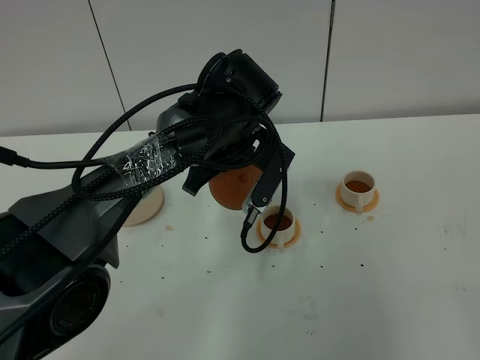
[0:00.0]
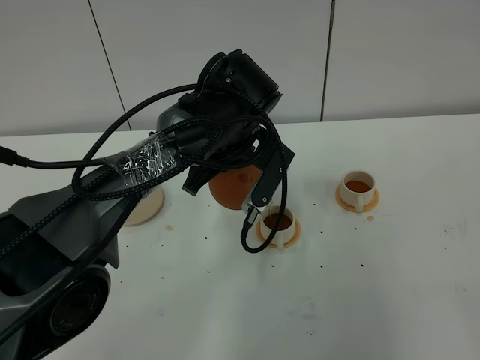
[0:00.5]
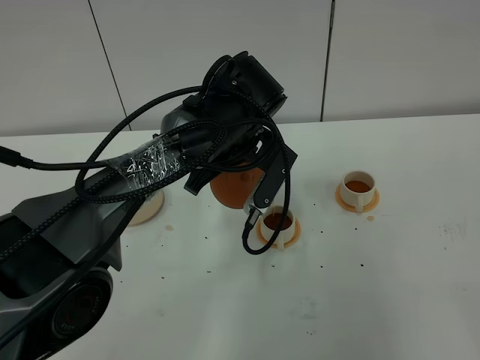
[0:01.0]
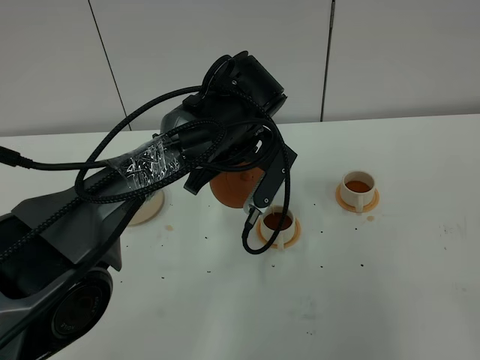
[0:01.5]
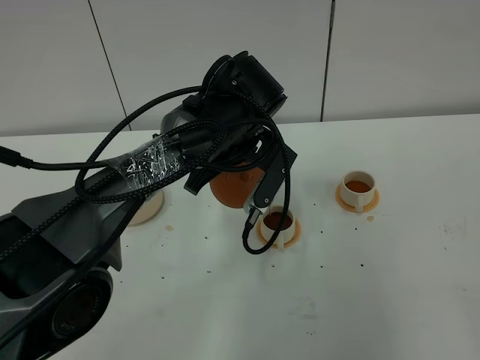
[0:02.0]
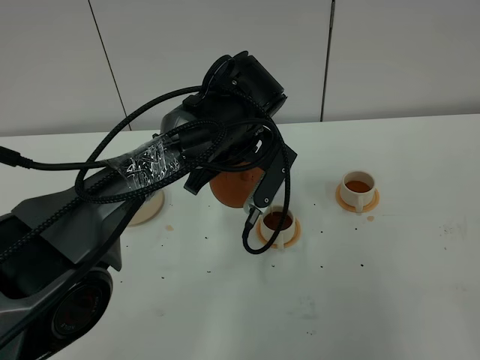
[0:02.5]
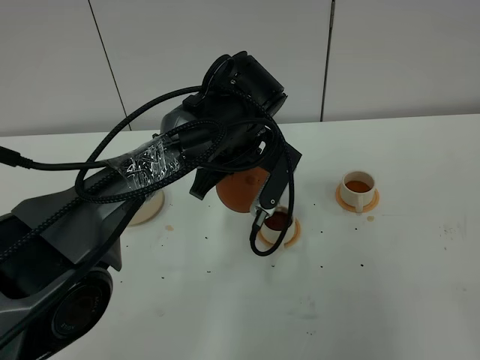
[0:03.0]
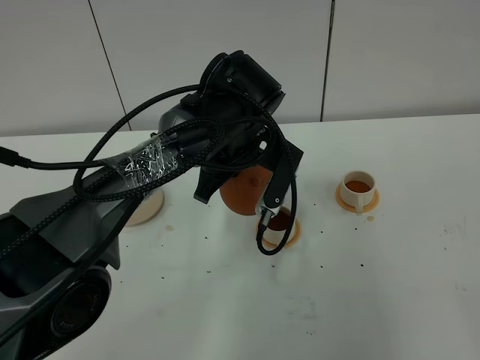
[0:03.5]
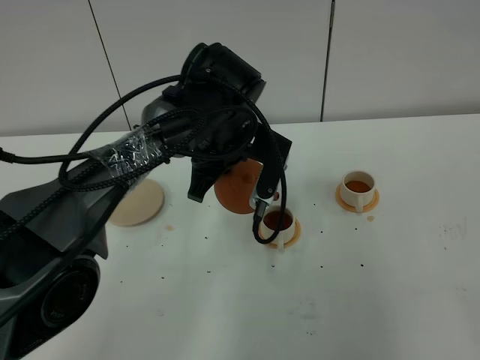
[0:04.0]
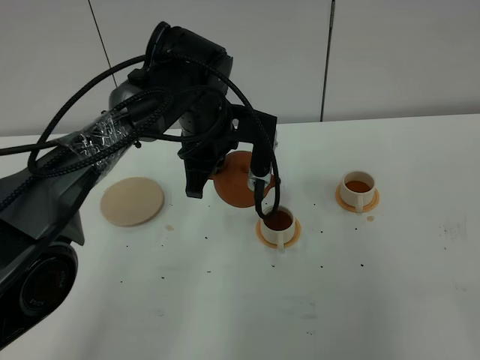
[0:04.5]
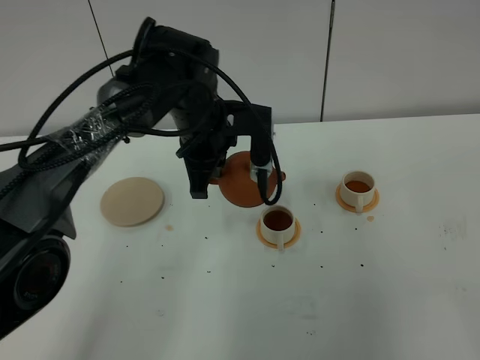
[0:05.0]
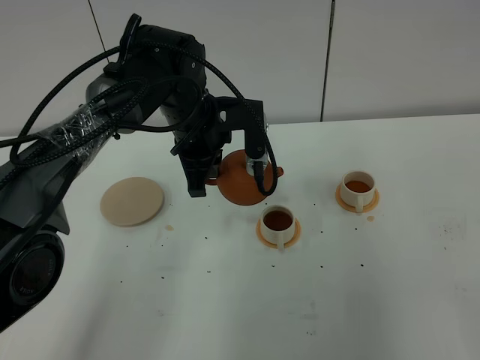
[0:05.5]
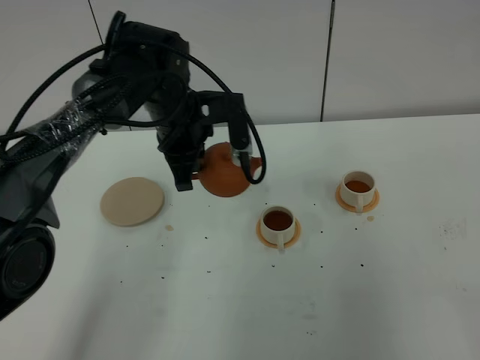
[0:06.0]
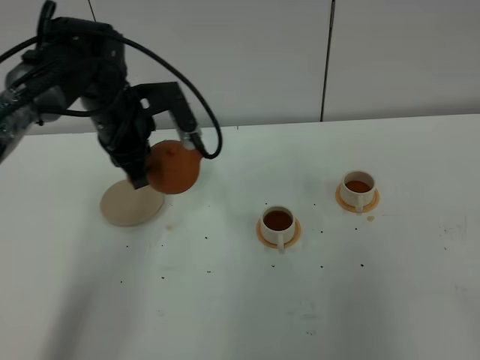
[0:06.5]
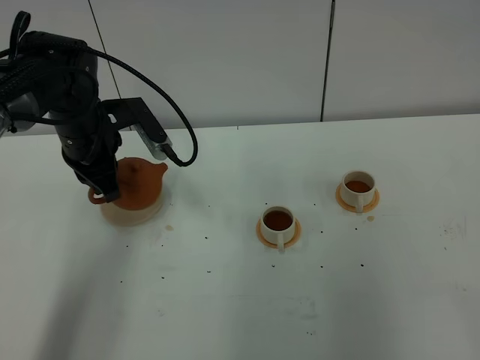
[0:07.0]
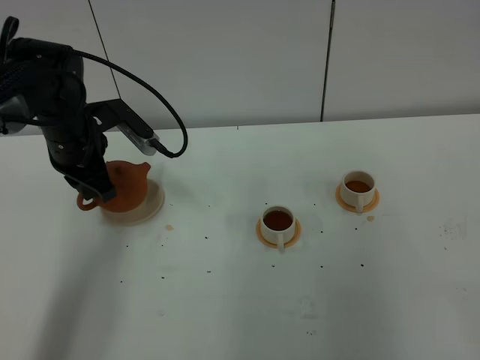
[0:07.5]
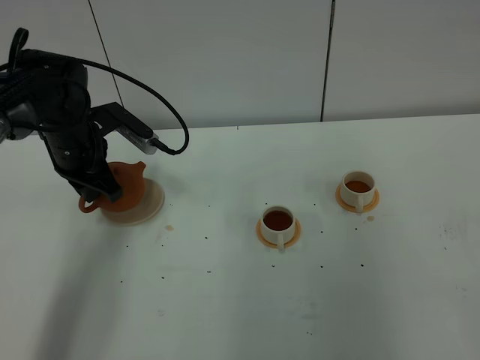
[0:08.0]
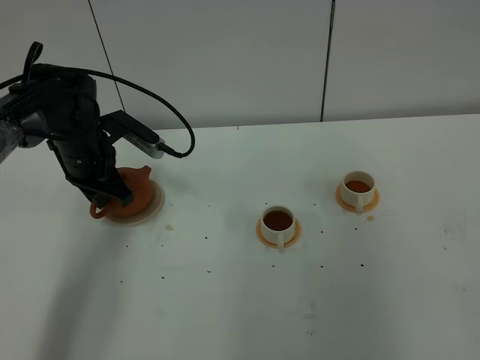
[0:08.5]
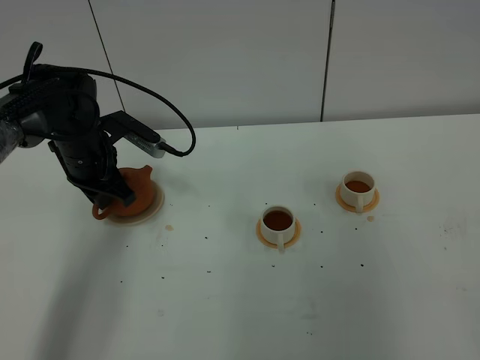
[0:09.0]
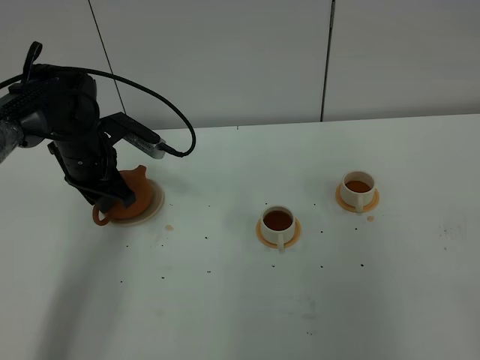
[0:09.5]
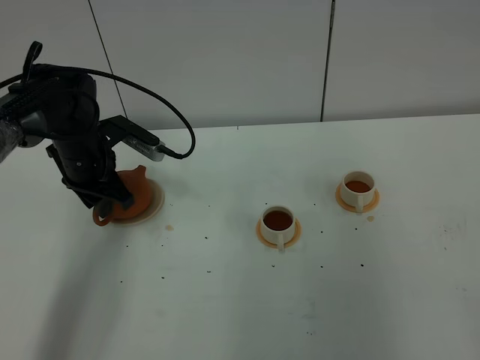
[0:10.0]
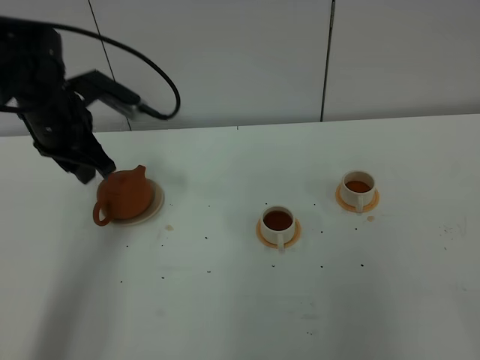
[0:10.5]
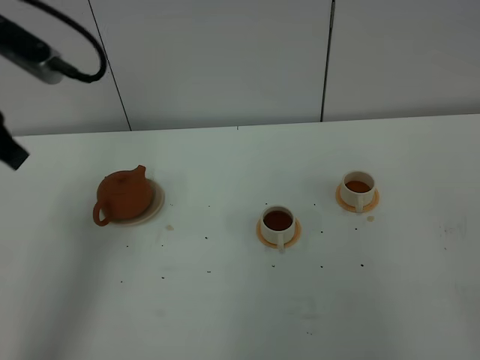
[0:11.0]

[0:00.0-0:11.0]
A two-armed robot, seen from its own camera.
Task of the whole recording: grasp the brown teapot and pour the tea into the two white teacups one by one, put the brown teapot back in its original place.
Step, 0:00.0 to 0:04.0: Pour tea into the teacup with the left gripper.
0:00.0 to 0:02.0: Both grippers stay about where they are.
0:02.0 to 0:03.5: There are only small adjustments of the grippers.
0:03.5 to 0:05.5: The left gripper travels to the left by approximately 5 cm.
0:05.5 to 0:07.5: The left gripper is displaced to the left by about 15 cm.
0:07.5 to 0:09.0: The grippers move only a little.
0:09.0 to 0:11.0: The left gripper travels upward and backward by roughly 25 cm.

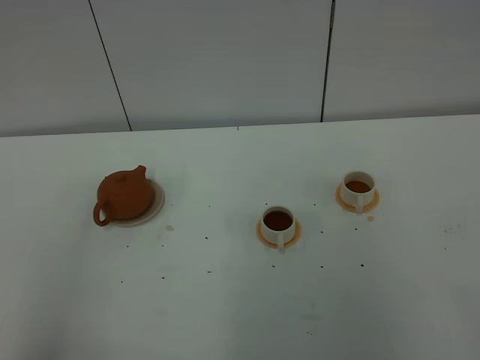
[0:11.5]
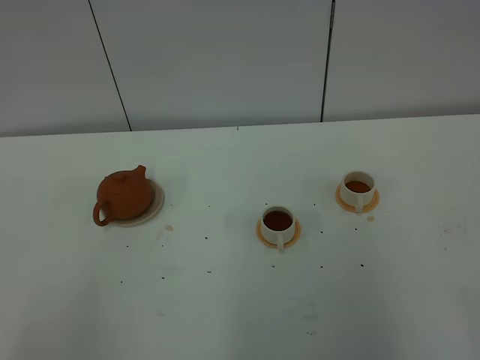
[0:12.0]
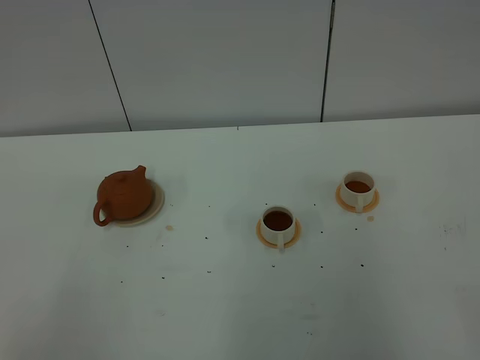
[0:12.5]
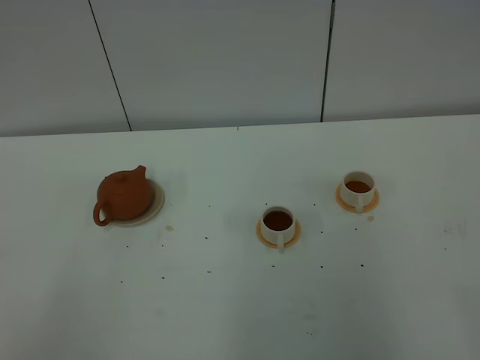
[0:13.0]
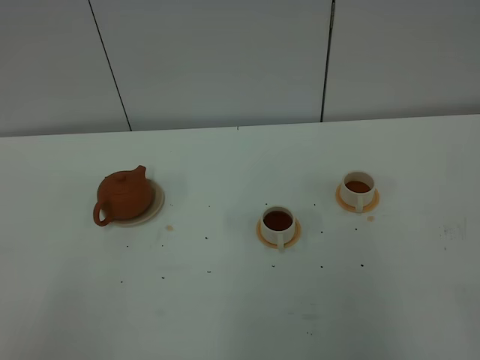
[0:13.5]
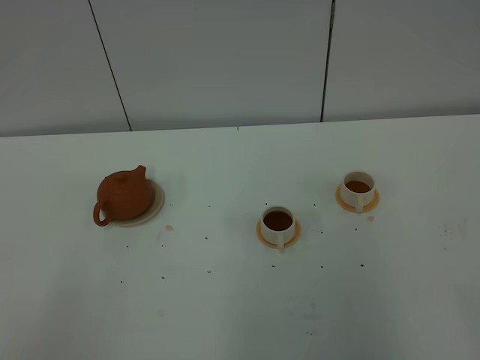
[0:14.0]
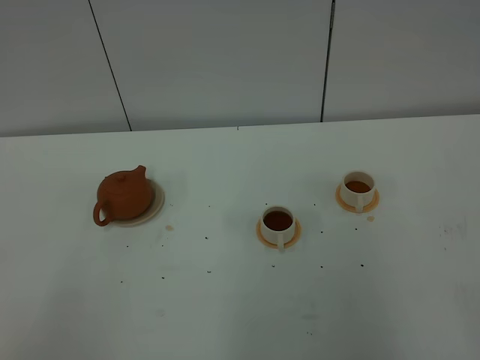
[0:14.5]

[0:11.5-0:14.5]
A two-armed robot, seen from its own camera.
Task of the whole recording: grasp the brown teapot and pour the tea into the two white teacups one by one, put the brown teapot back in its original place.
0:13.0 to 0:14.5: Neither gripper changes place.

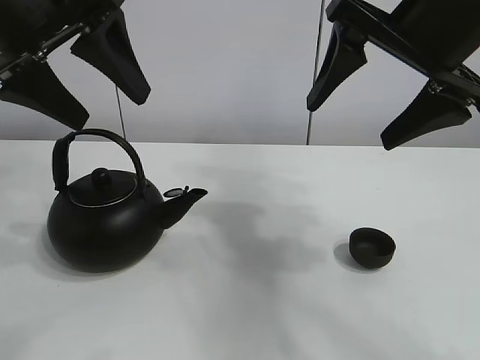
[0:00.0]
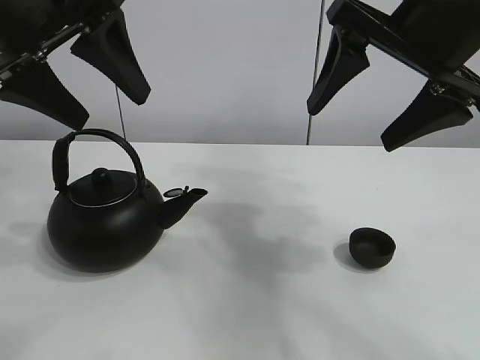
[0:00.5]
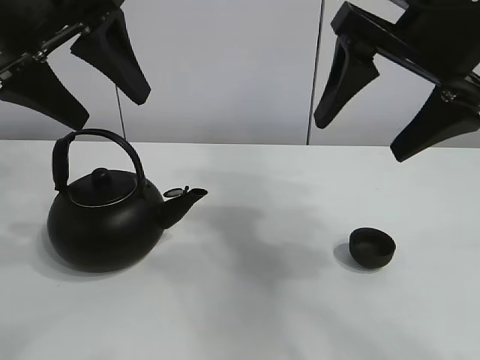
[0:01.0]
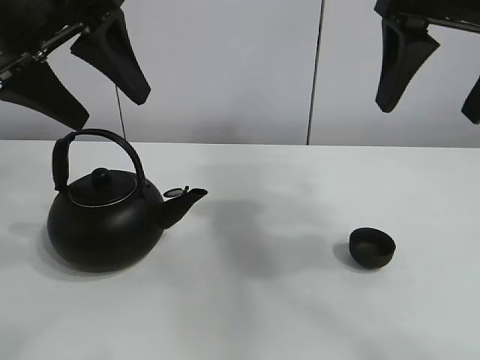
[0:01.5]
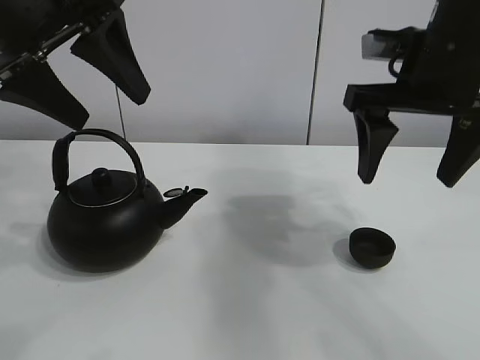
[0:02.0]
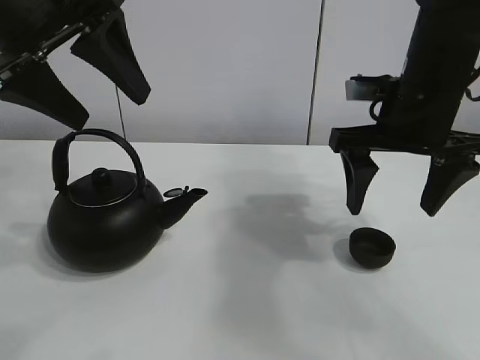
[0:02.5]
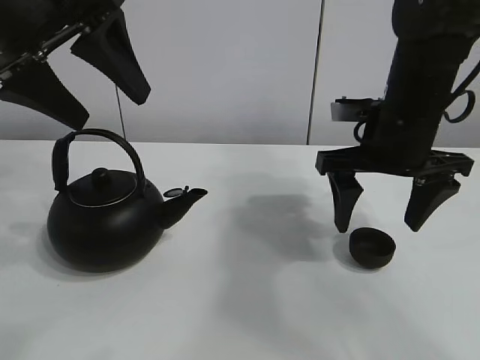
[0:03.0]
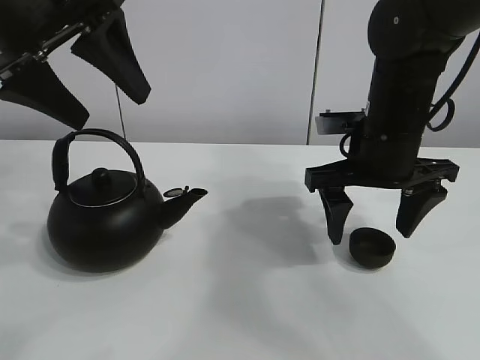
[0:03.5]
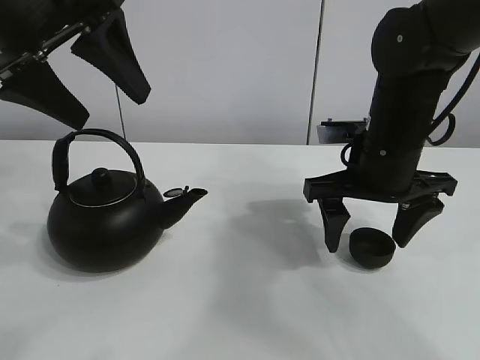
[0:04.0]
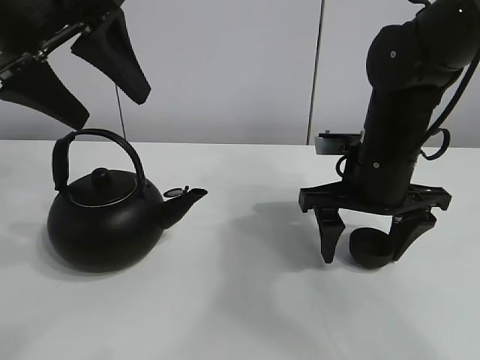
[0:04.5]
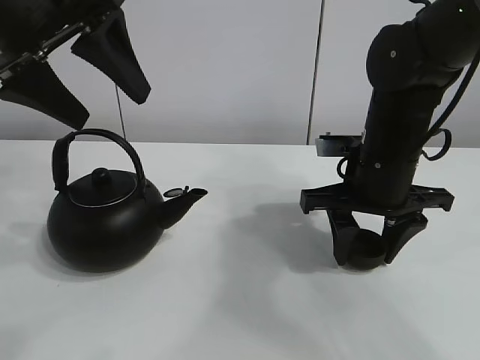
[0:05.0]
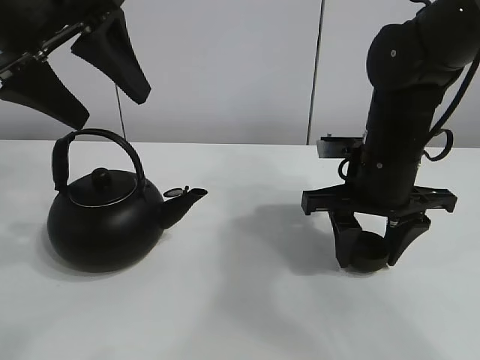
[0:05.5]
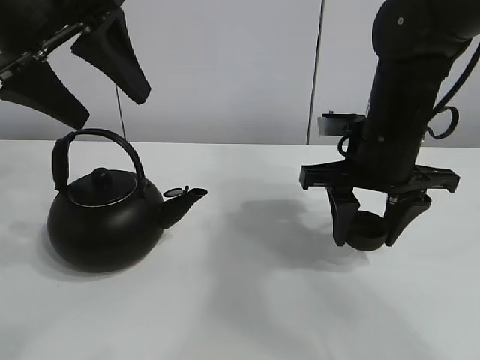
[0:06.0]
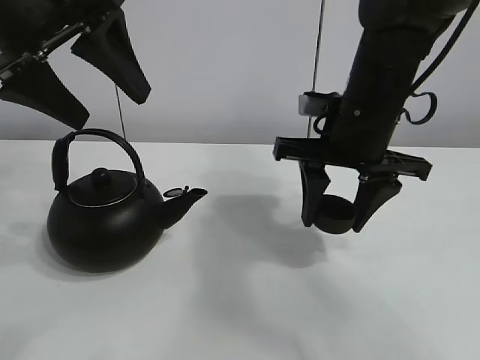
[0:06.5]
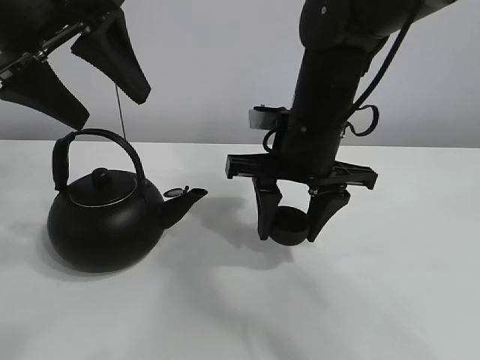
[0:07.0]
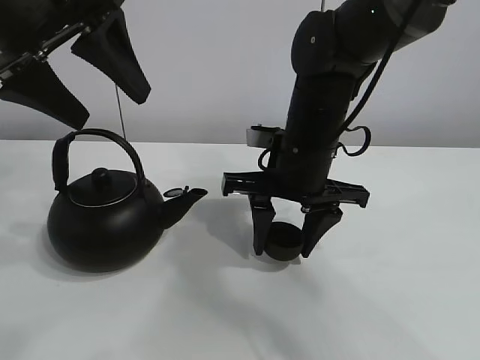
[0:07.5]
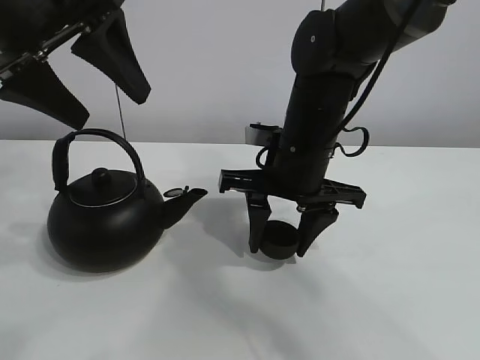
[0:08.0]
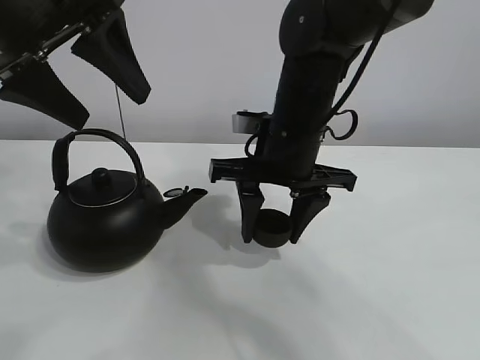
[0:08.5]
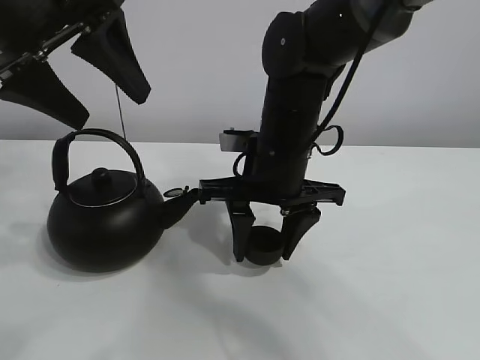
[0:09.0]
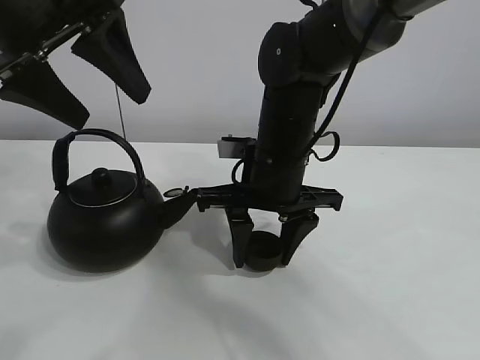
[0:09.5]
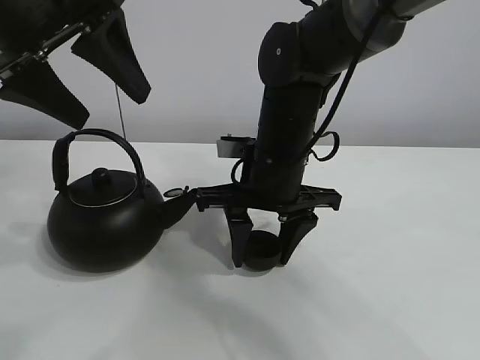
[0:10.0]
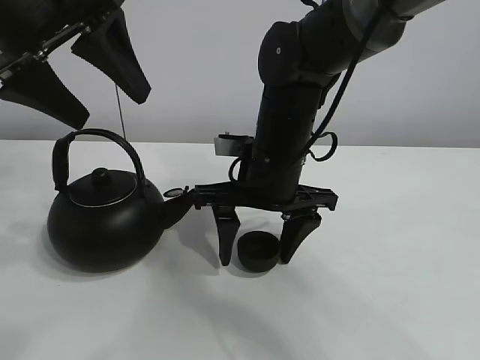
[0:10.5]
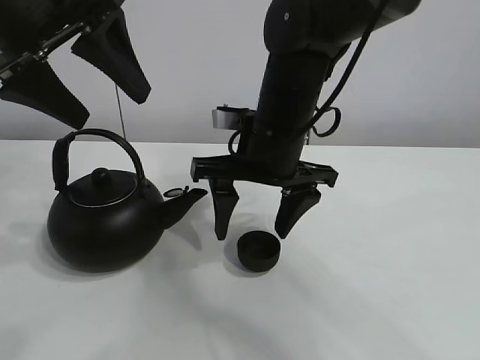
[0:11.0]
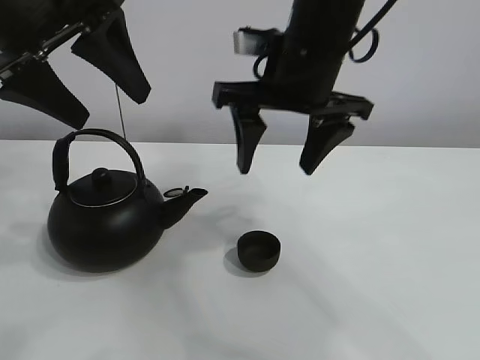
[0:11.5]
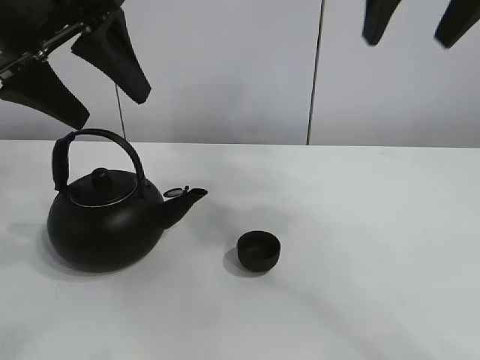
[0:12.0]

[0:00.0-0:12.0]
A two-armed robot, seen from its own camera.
Task of the whole recording: pour tea into the teacup.
Step, 0:00.0 to 0:05.5: Pick up the teacup with the right gripper.
Step, 0:06.0 to 0:10.0: Place the teacup in the center of view with the right gripper.
0:02.0 to 0:04.0: The right gripper travels downward by some 10 cm.
0:04.0 to 0:06.0: The right gripper closes.
0:06.0 to 0:08.0: The right gripper shifts about 10 cm to the left.
0:08.0 to 0:10.0: The grippers stay close to where they were, moving slightly.
0:10.0 to 0:12.0: The right gripper moves upward and to the right, about 25 cm, and opens.
